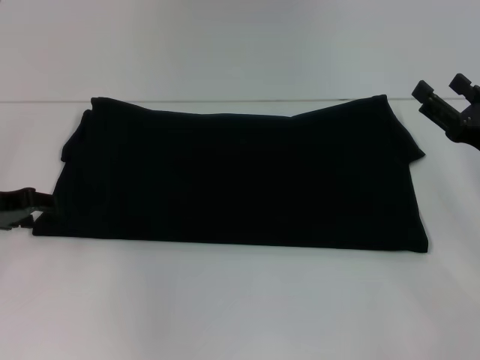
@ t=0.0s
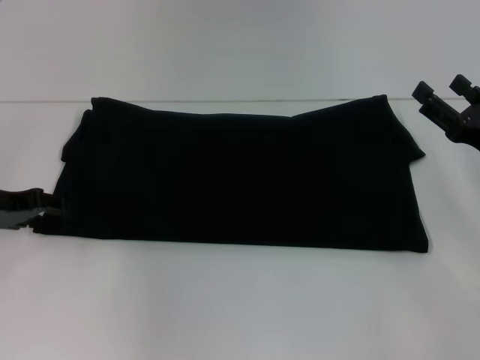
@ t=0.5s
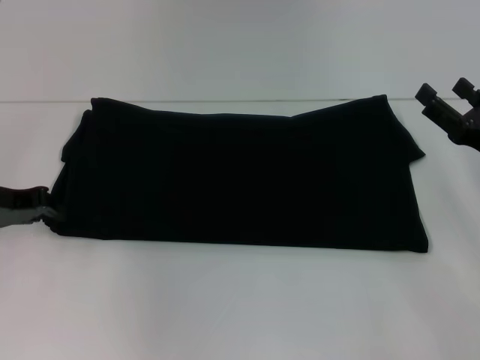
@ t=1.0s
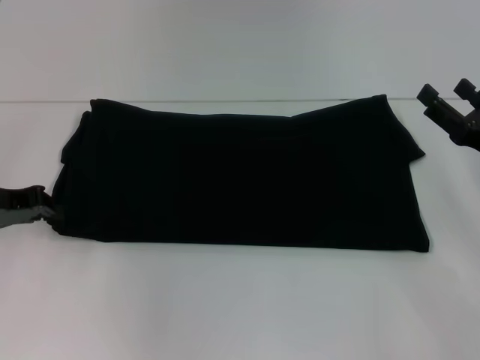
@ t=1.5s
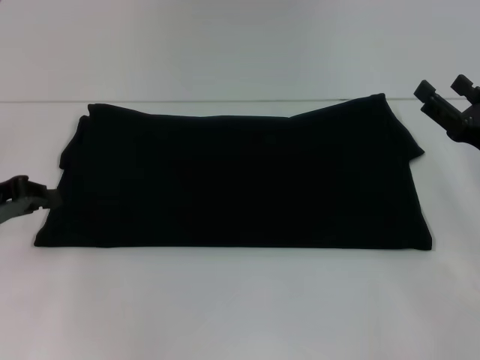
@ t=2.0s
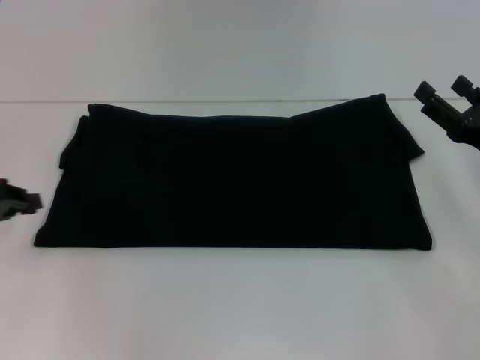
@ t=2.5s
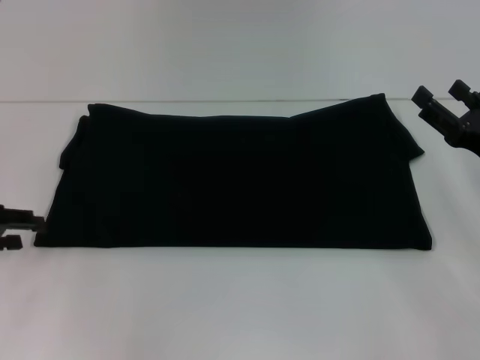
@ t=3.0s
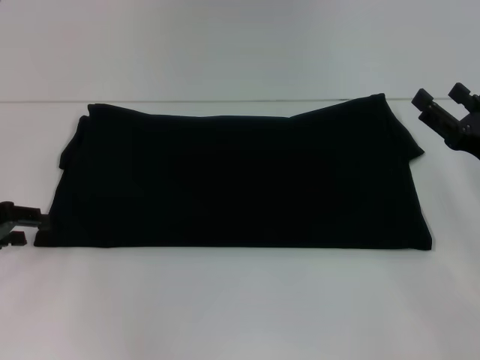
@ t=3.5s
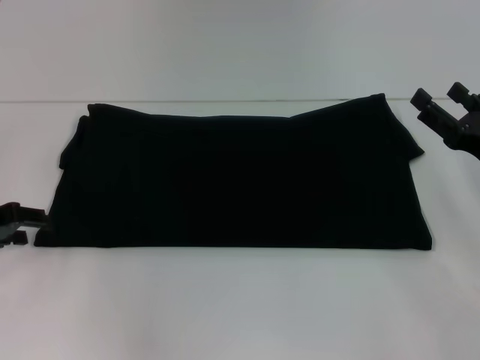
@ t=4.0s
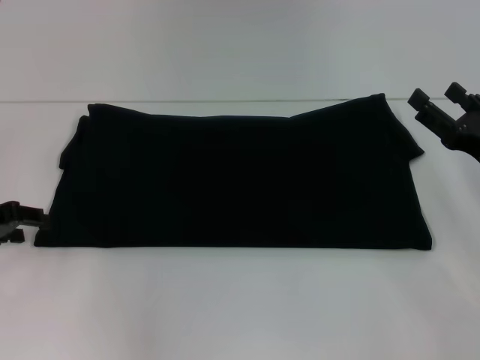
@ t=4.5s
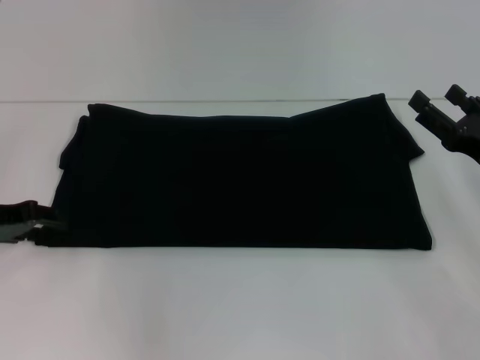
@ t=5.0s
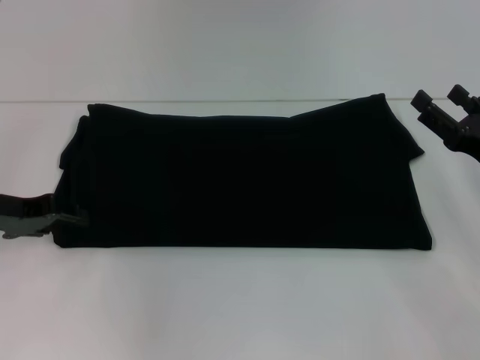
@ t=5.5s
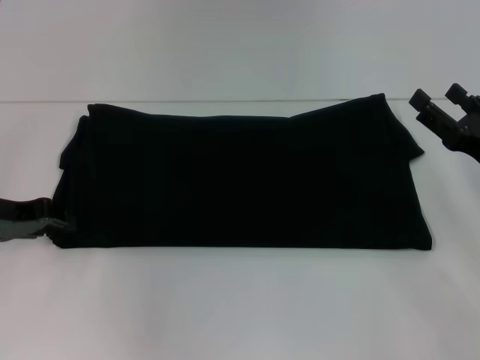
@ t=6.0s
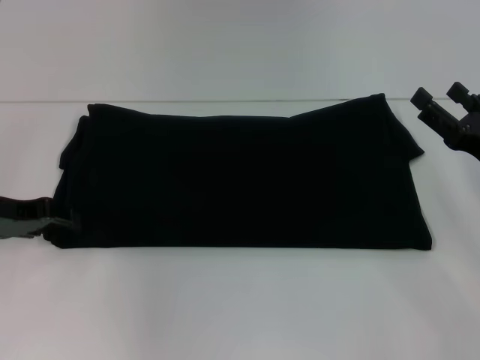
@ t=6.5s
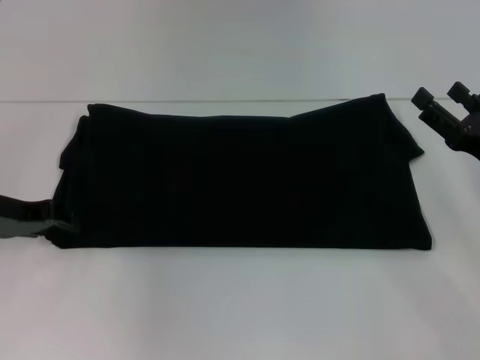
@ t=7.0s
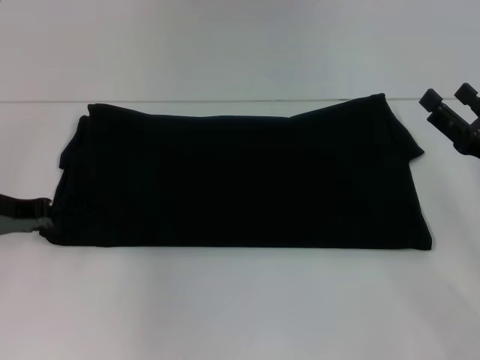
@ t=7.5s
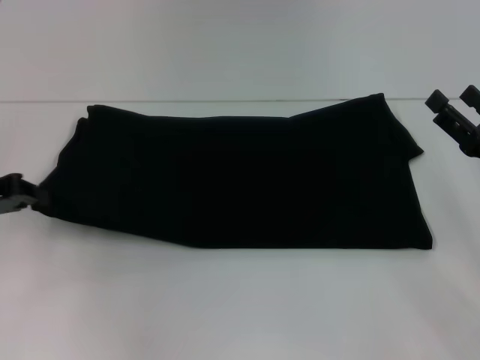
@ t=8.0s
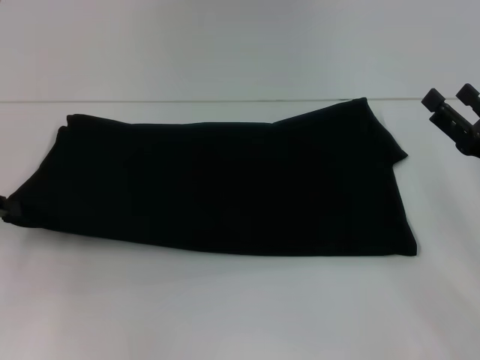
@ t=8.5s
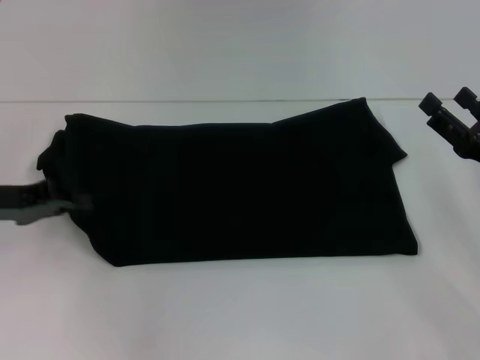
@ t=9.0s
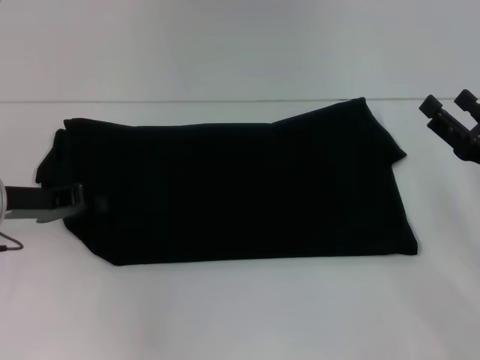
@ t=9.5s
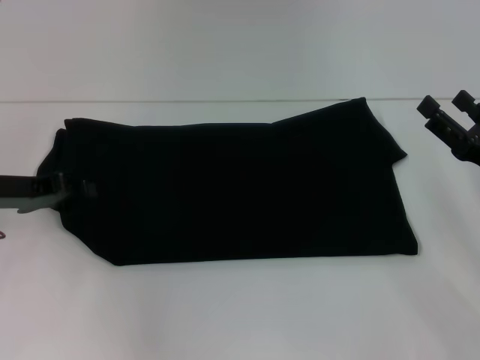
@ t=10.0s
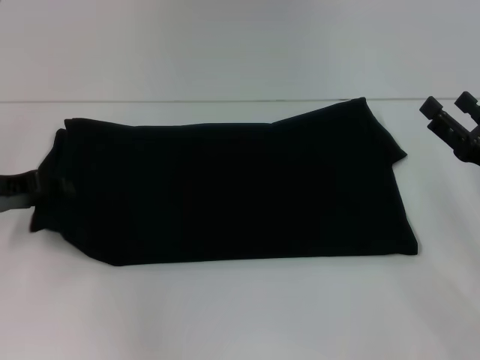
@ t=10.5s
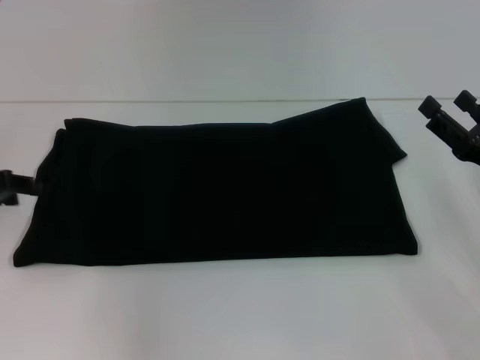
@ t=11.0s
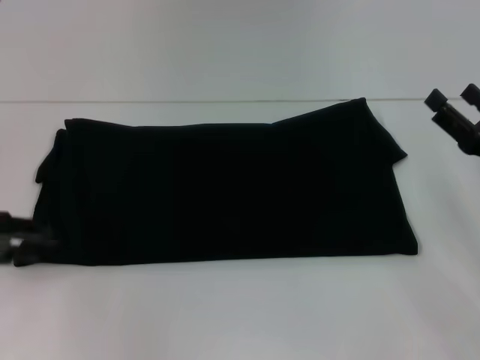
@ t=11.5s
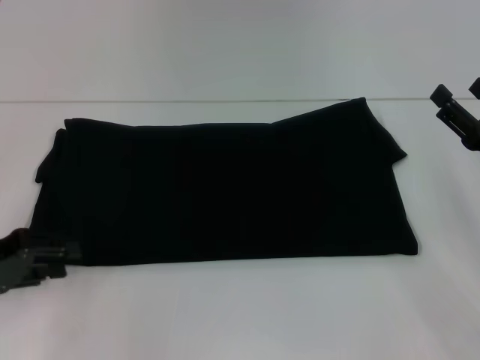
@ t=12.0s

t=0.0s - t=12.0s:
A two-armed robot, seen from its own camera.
t=0.0s - t=2.0s: The left gripper closes its fingers.
t=2.0s - t=4.0s: The left gripper opens.
t=4.0s - t=6.0s: The grippers make only small movements.
t=6.0s - t=8.0s: The left gripper closes.
t=10.0s - t=12.0s: The left gripper travels backward by some 10 cm, and opens.

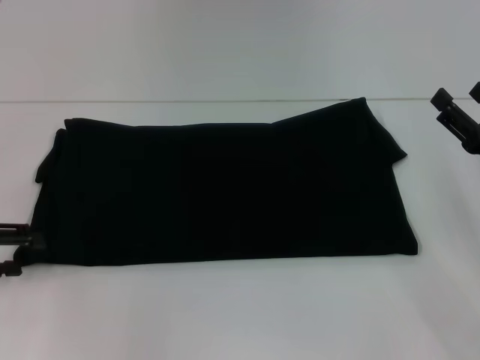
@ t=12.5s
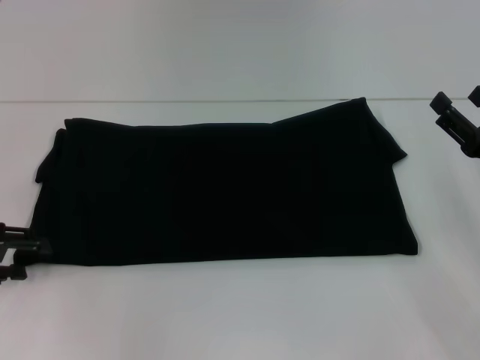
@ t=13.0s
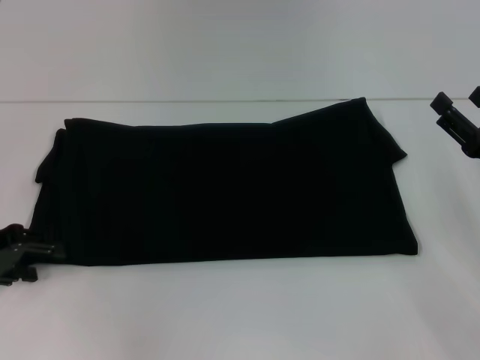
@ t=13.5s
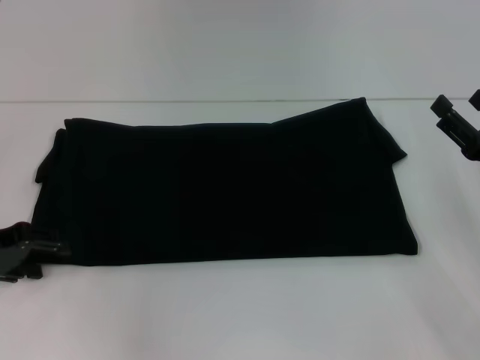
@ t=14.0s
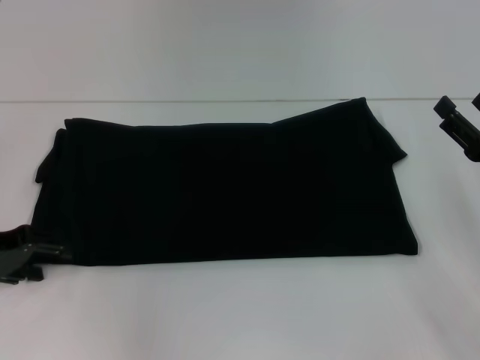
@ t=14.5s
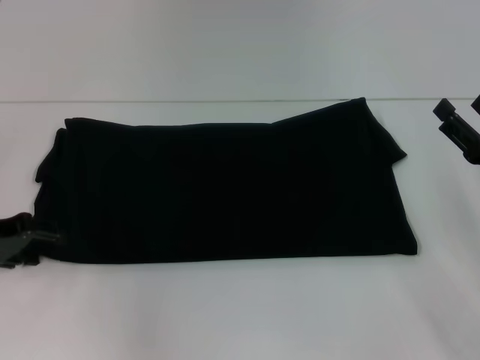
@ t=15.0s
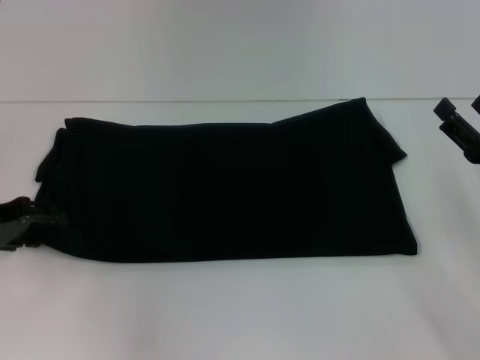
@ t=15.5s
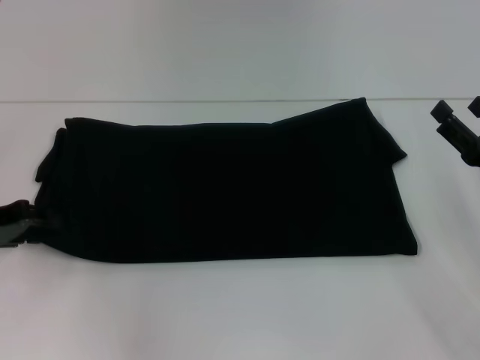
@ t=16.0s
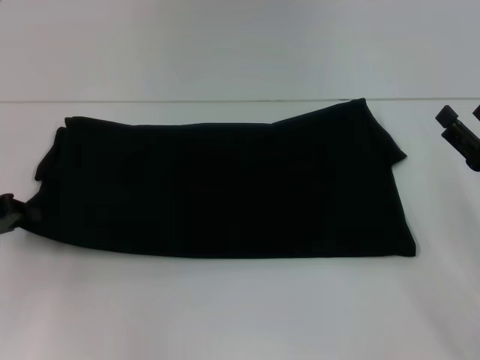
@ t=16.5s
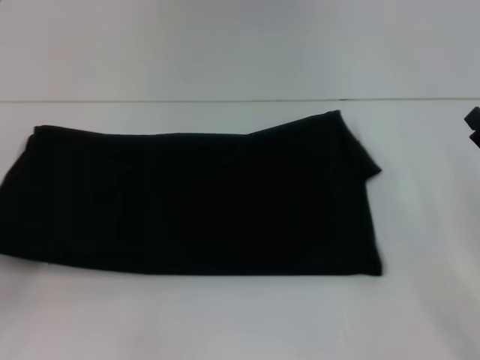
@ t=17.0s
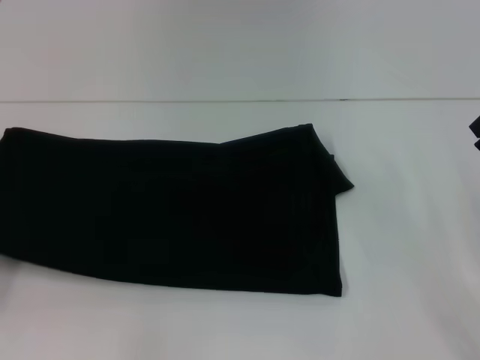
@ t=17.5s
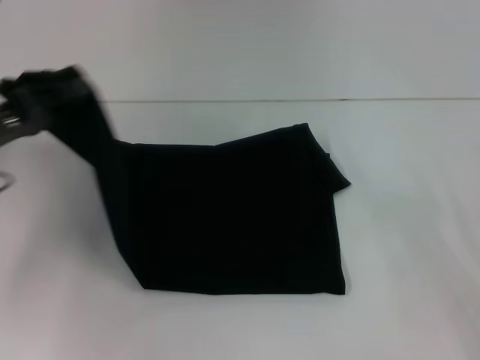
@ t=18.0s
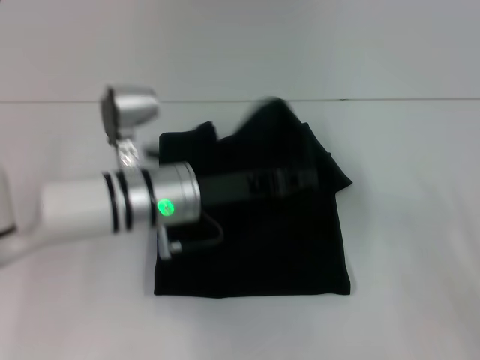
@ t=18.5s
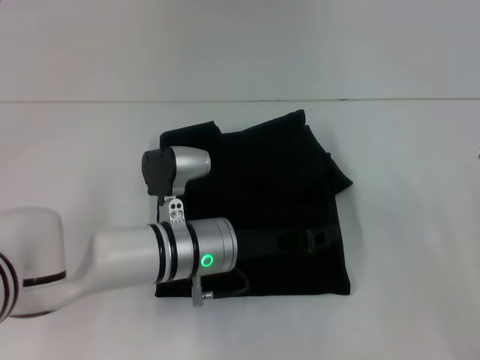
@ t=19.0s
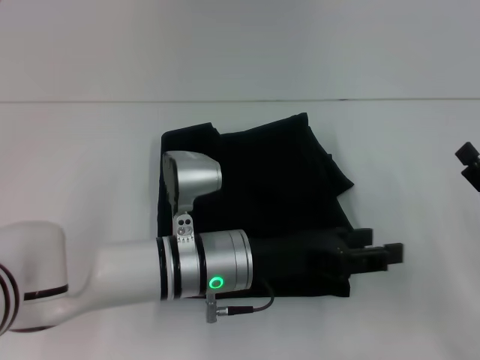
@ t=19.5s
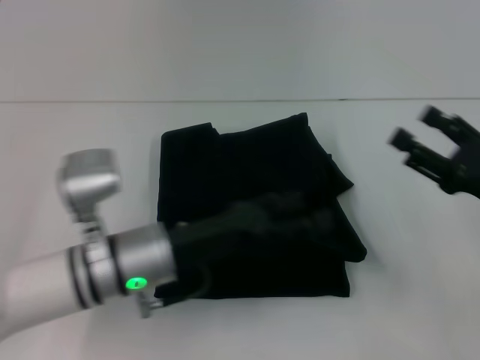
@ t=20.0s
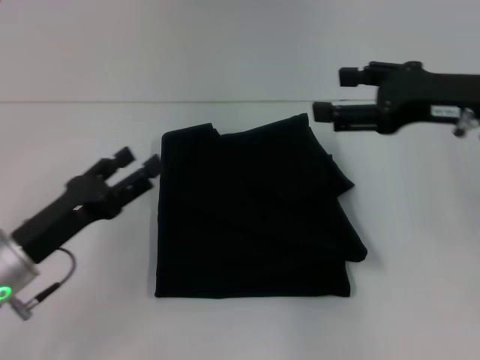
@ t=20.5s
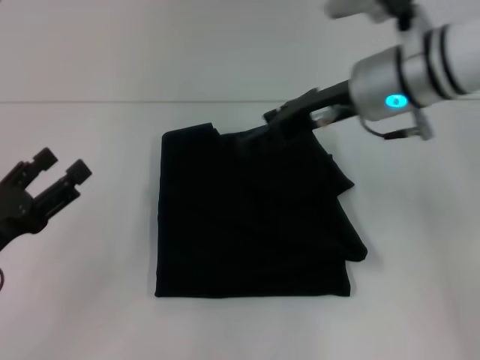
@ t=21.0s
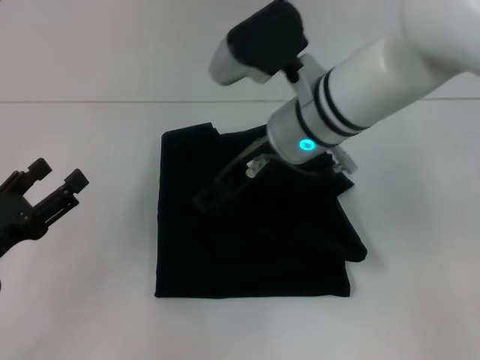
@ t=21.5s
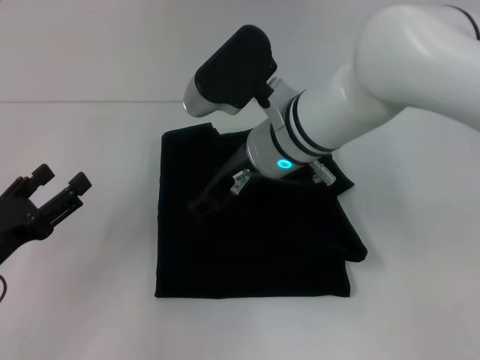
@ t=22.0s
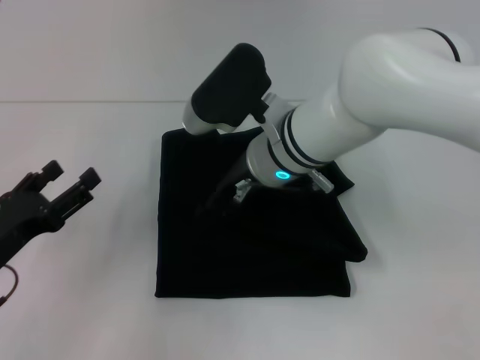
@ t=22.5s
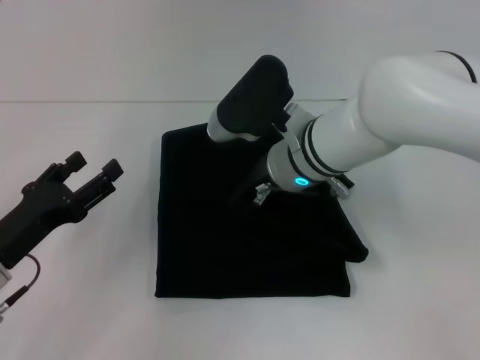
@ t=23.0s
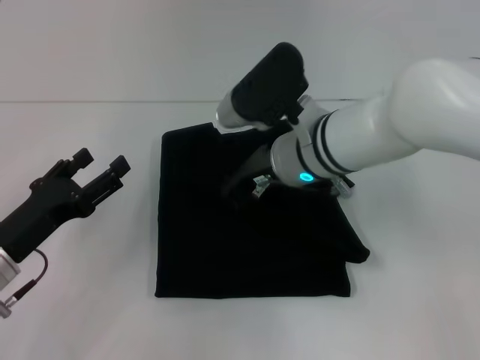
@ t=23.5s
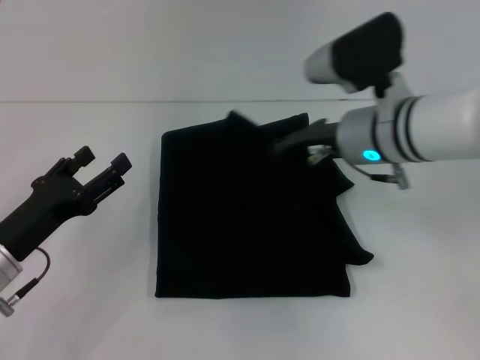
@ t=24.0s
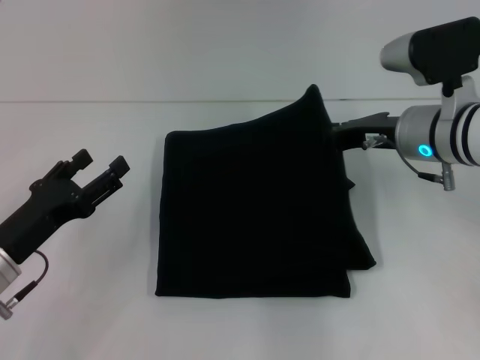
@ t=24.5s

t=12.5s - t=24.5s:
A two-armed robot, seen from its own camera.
Step, t=12.5s - t=19.0s: Fold the clothes with your left hand.
t=12.5s - t=14.5s: The grippers make only small movements.
t=14.5s - t=16.5s: The left gripper closes up.
t=16.5s - t=18.5s: The right gripper shifts some 5 cm backward, while the left gripper goes roughly 25 cm to the right.
t=18.5s - t=20.5s: The left gripper heads to the left and backward, covering about 15 cm, and opens up. The right gripper is displaced upward, forward and to the left by some 25 cm.
t=20.5s - t=22.5s: The right gripper is displaced to the left by roughly 20 cm, while the left gripper moves approximately 5 cm.
t=22.5s - t=24.5s: The right gripper moves to the right, approximately 15 cm, and closes its fingers.

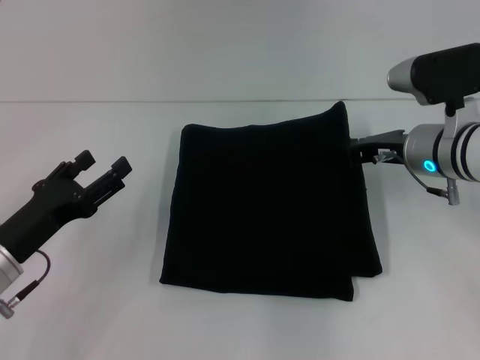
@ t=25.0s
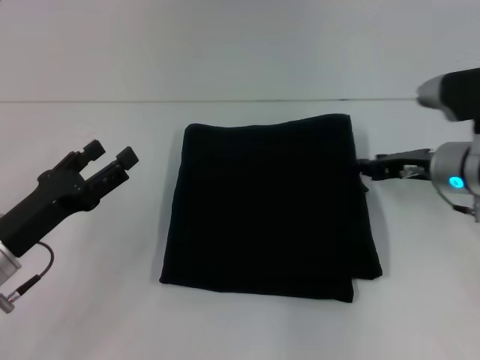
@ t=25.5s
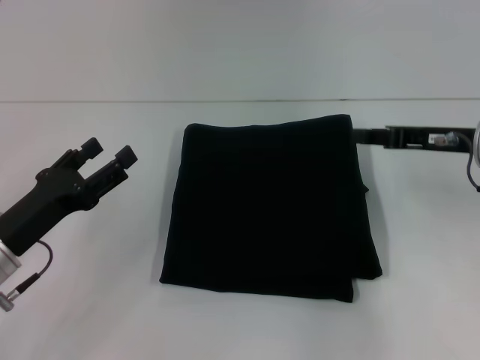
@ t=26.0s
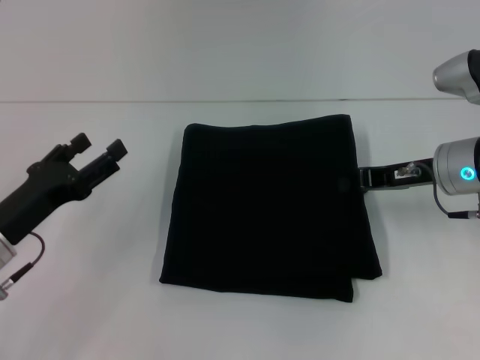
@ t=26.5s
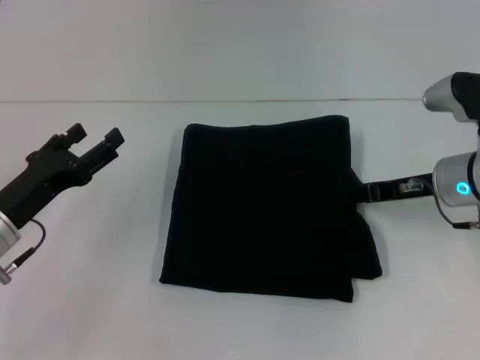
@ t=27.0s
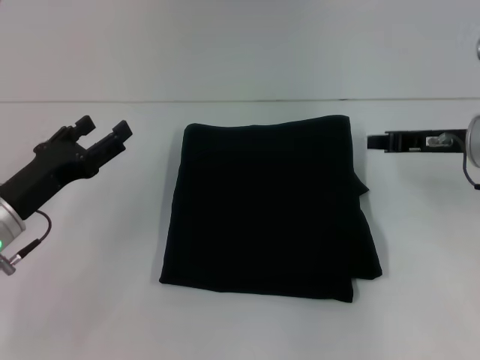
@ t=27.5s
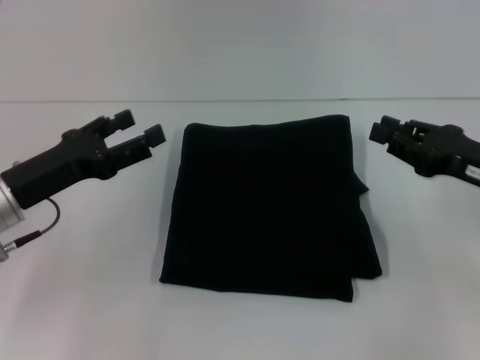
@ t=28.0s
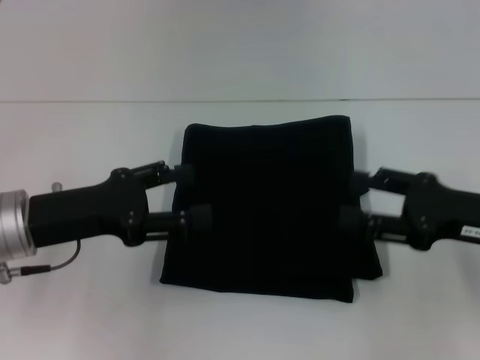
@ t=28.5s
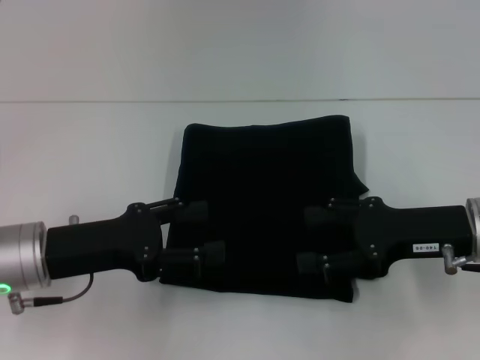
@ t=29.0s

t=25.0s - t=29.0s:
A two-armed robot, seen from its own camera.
t=25.0s - t=27.0s: The right gripper opens and closes again.
t=27.0s - t=29.0s: The left gripper ends up roughly 5 cm from where it was. Meanwhile the right gripper heads backward, covering roughly 10 cm, and opens its fingers.
